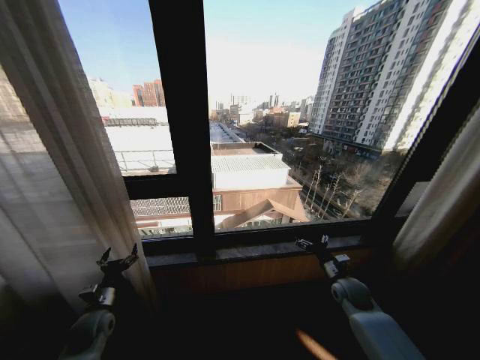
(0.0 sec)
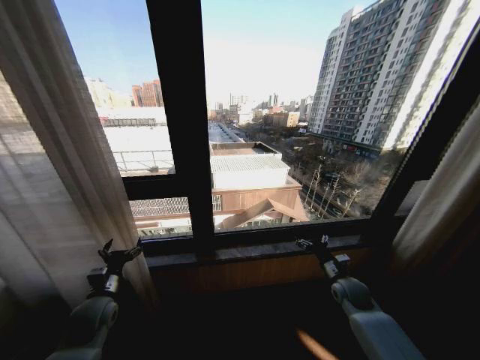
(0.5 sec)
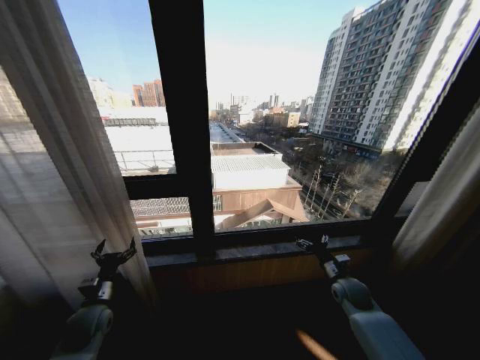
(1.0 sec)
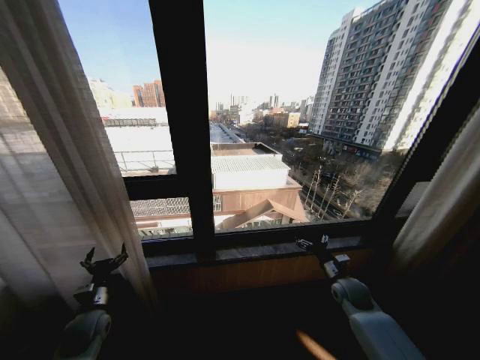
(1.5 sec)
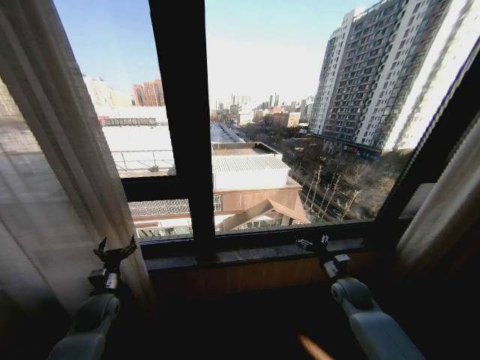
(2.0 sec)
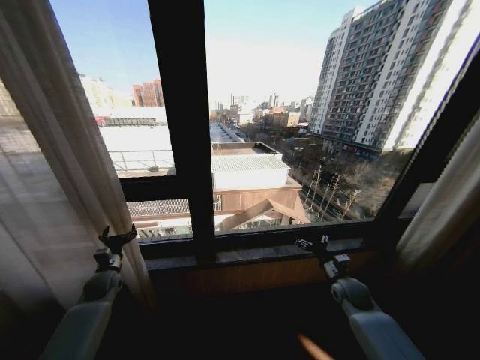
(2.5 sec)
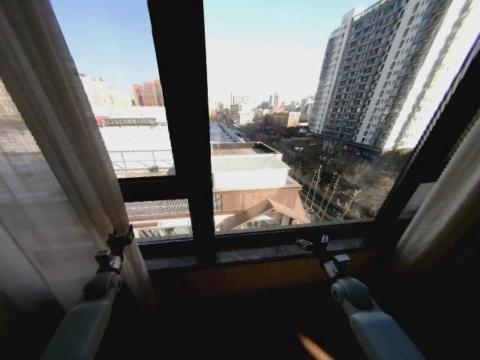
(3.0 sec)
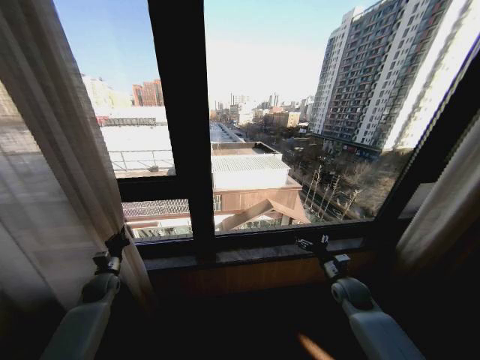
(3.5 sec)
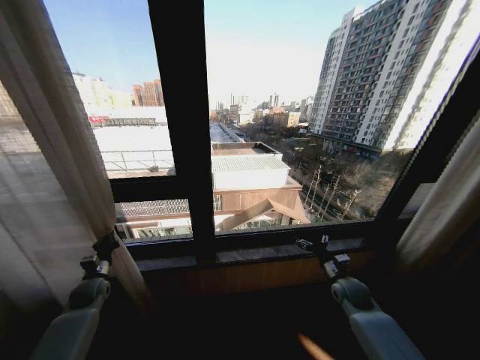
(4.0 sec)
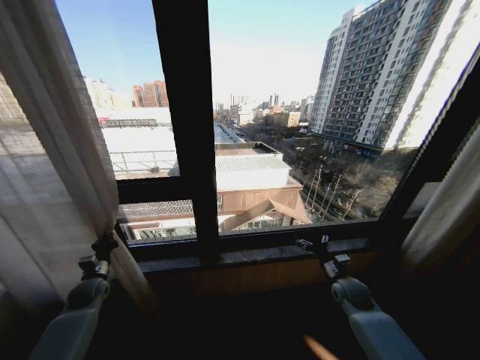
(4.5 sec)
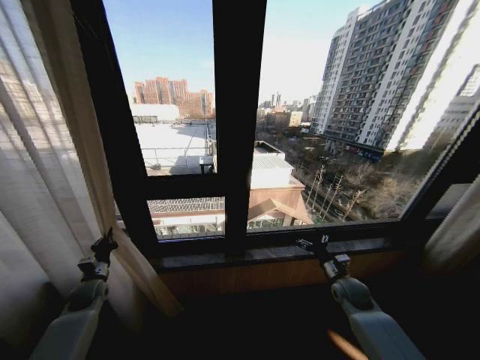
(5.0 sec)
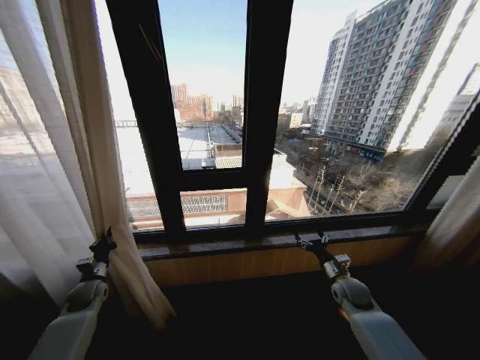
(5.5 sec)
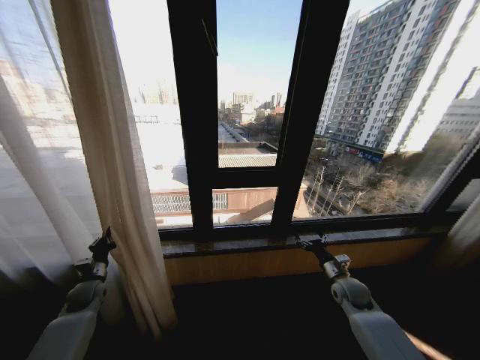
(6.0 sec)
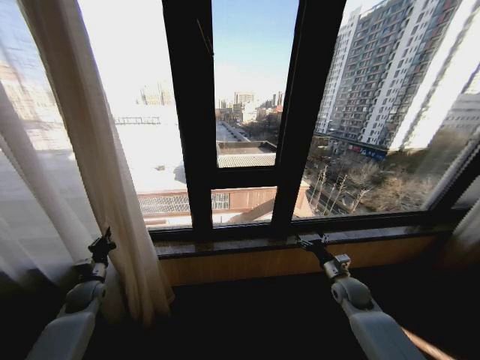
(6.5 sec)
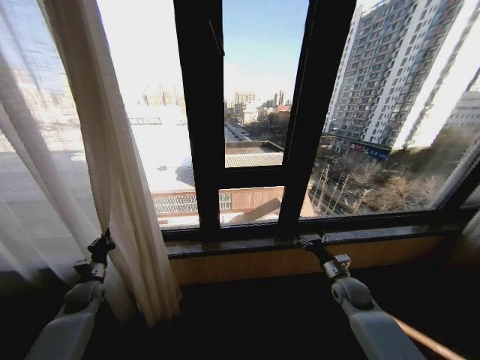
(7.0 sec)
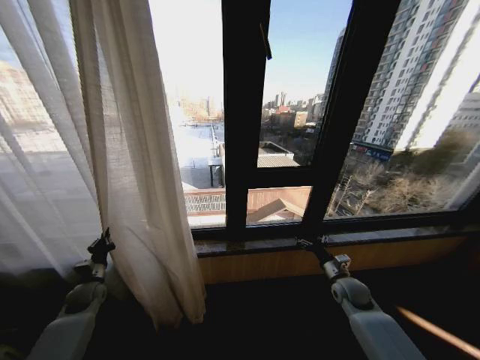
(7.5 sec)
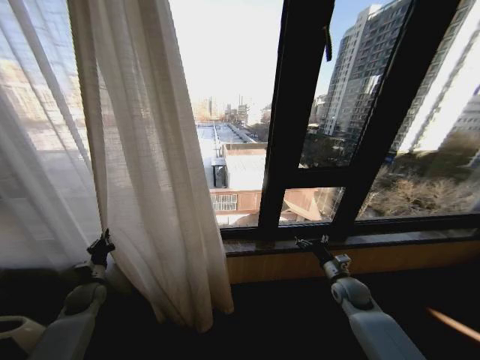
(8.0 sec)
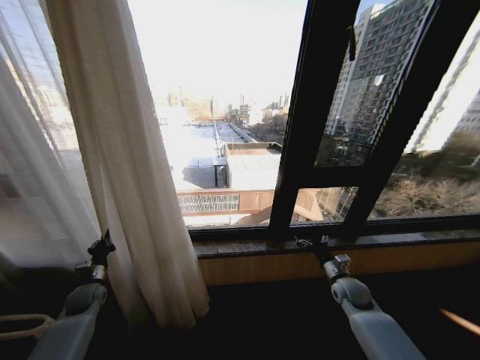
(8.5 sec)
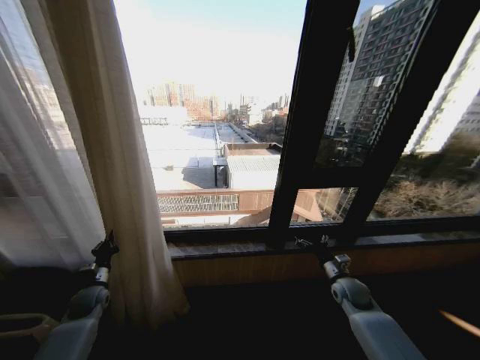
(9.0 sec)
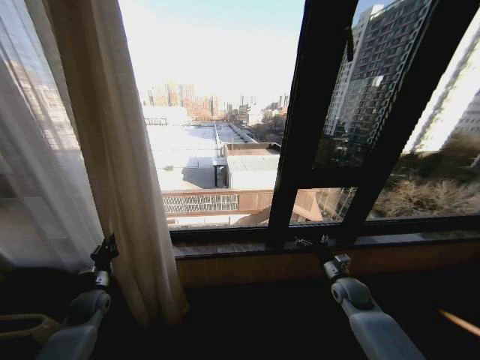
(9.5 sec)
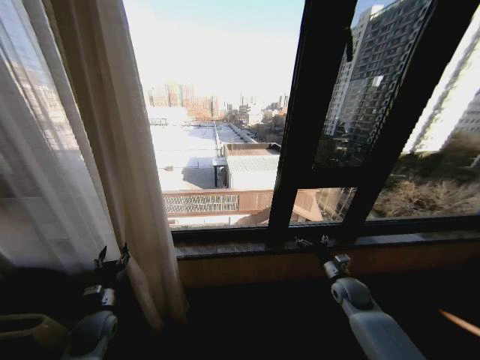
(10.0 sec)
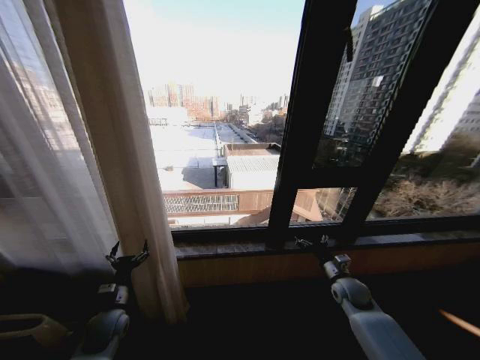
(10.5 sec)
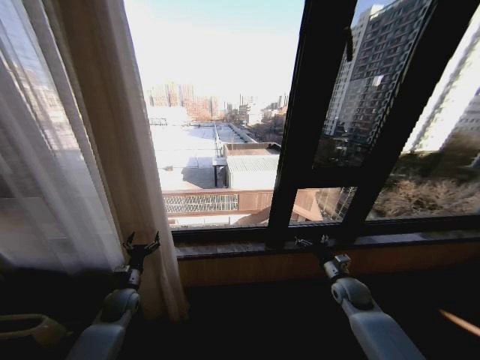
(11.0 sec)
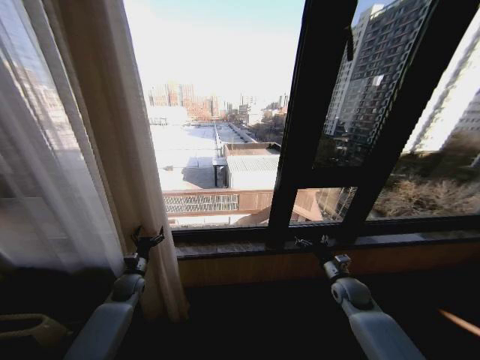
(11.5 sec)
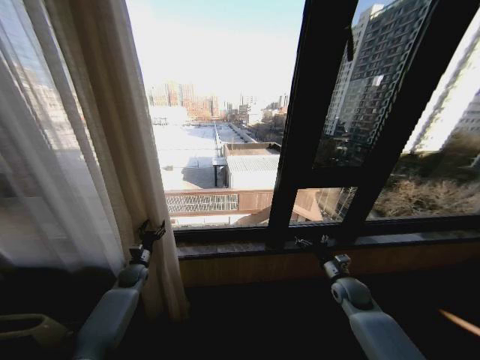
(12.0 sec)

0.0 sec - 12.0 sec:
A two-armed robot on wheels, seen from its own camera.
Task of the whole recording: Open the curtains by pulling them apart, changing their state from closed to fully open.
2.0 sec - 4.0 sec: The left gripper goes about 10 cm to the left and forward, and closes up.
8.0 sec - 10.0 sec: The left gripper moves to the right and backward, roughly 10 cm, and opens its fingers.
10.0 sec - 12.0 sec: The left gripper shifts approximately 15 cm forward.

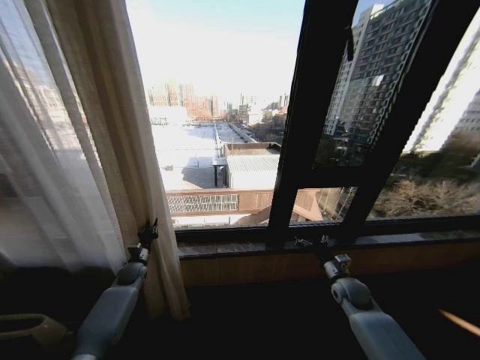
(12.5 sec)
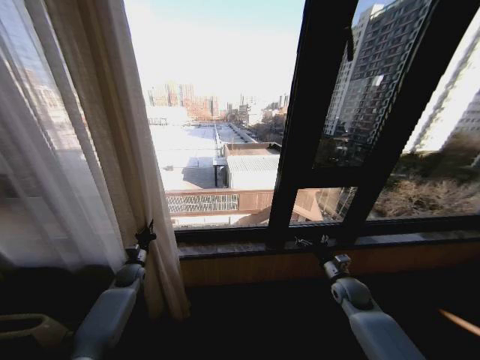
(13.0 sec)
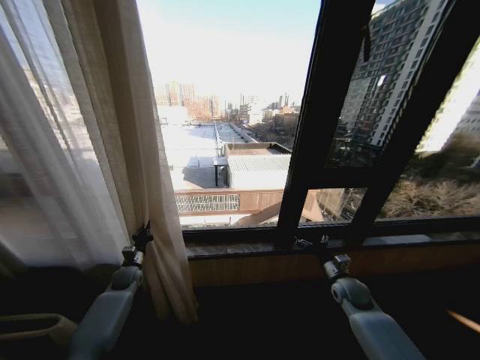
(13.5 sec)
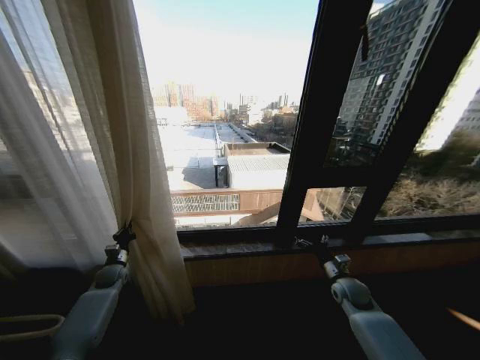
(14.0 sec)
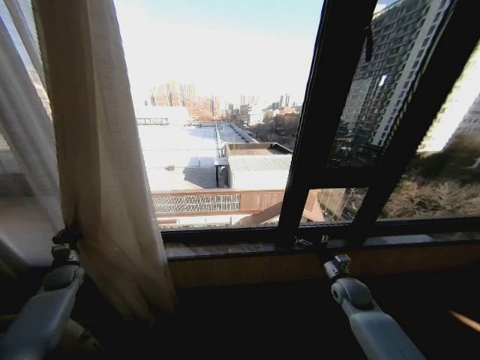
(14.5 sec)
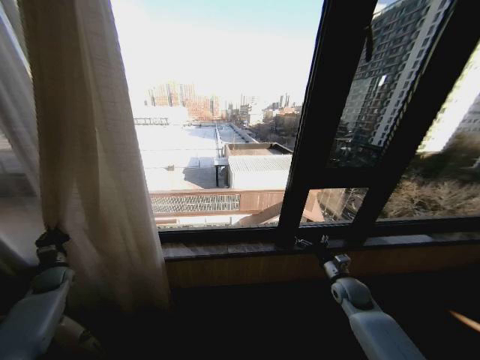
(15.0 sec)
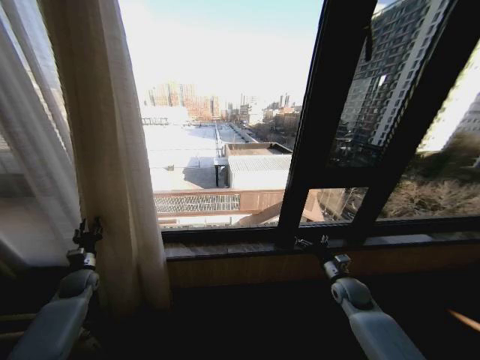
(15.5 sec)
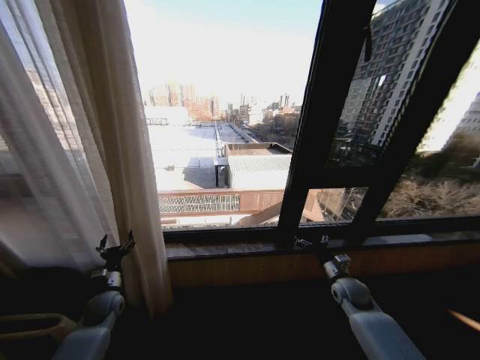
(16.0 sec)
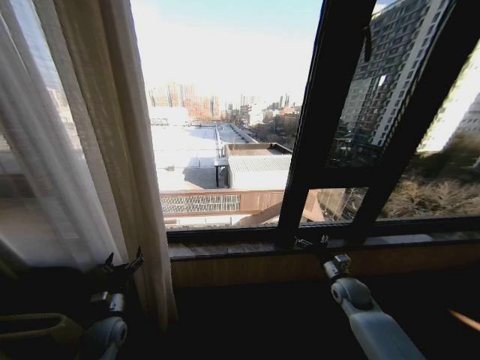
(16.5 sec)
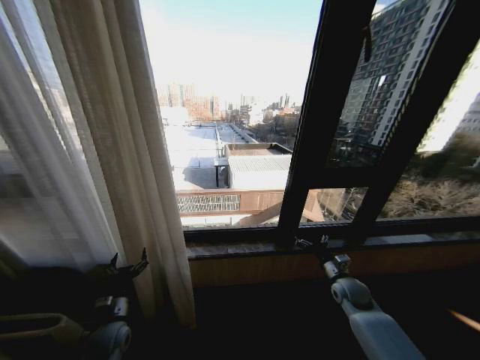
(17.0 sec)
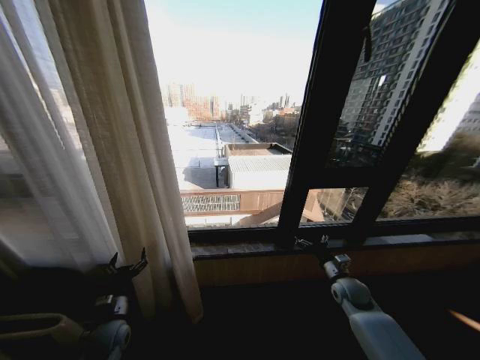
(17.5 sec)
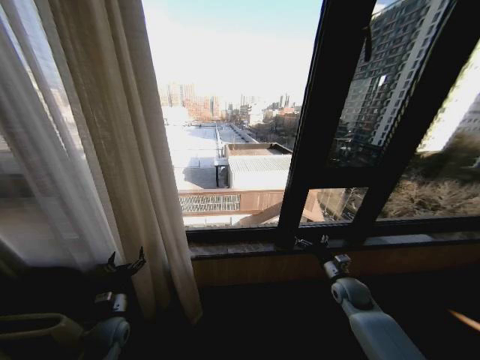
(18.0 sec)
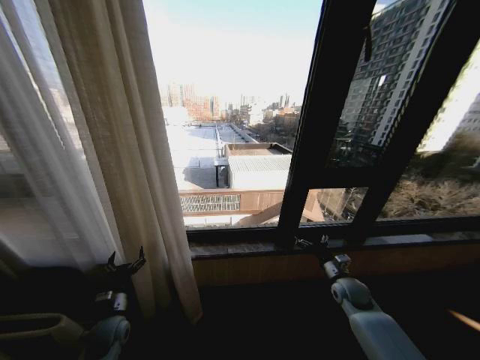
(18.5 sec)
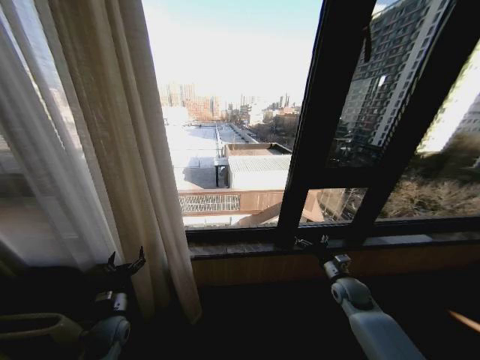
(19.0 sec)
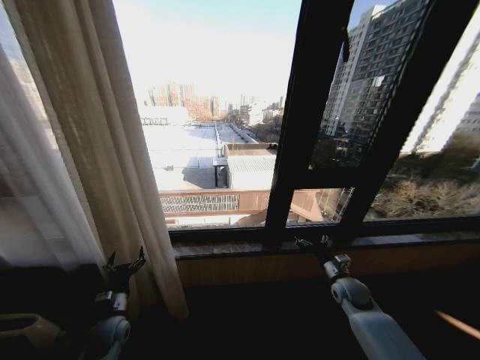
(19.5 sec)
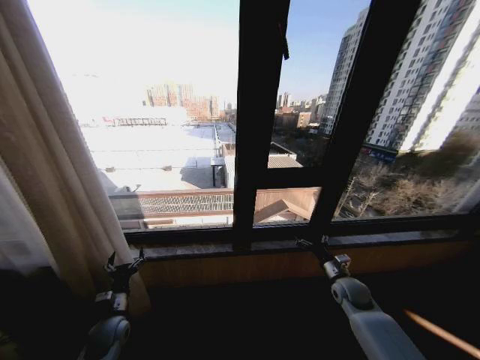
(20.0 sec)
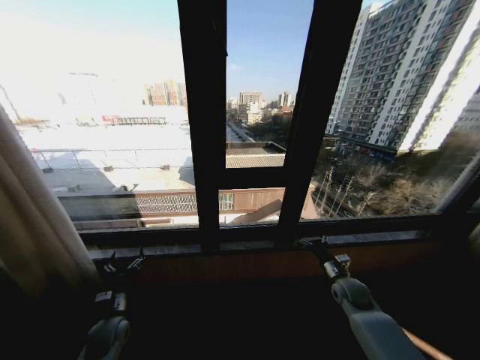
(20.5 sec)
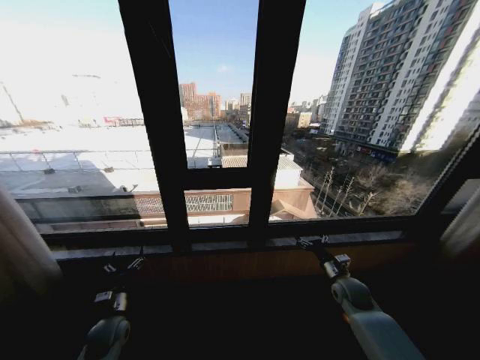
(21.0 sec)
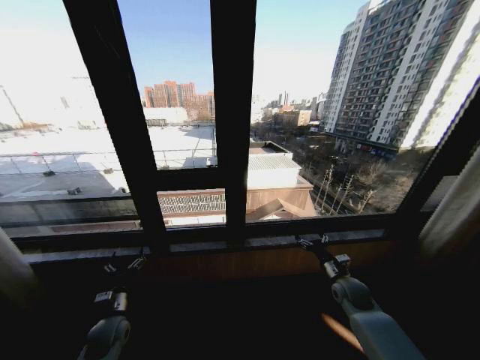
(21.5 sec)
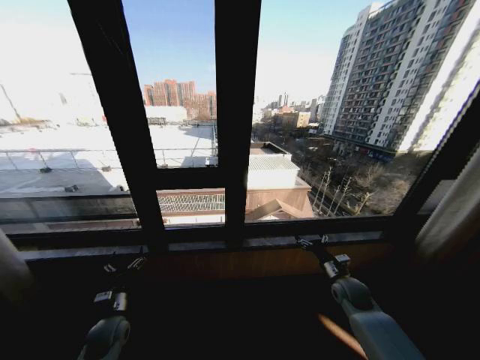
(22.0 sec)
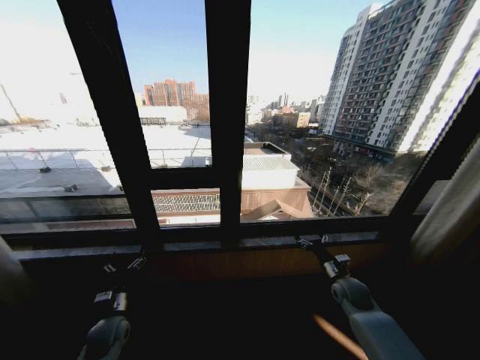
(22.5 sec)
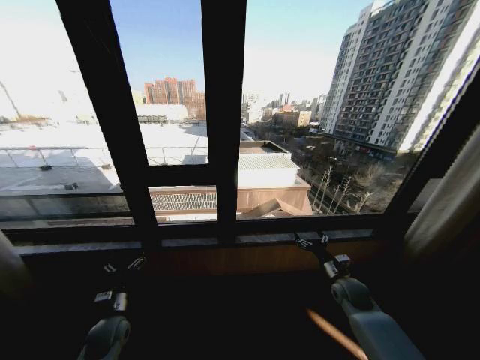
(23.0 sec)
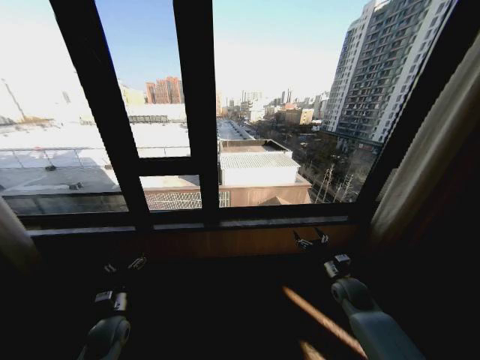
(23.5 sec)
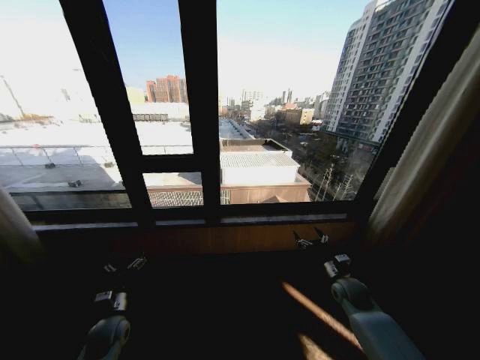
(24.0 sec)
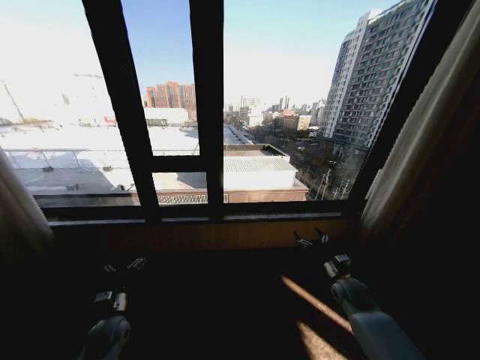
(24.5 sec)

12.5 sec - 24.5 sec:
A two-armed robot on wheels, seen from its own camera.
Task of the whole recording: Open the curtains by pulling them apart, changing their state from closed to fully open.
12.5 sec - 14.5 sec: The left gripper moves to the left, roughly 20 cm.
14.5 sec - 16.5 sec: The left gripper moves to the right and backward, roughly 25 cm, and opens its fingers.
16.5 sec - 18.5 sec: The grippers make only small movements.

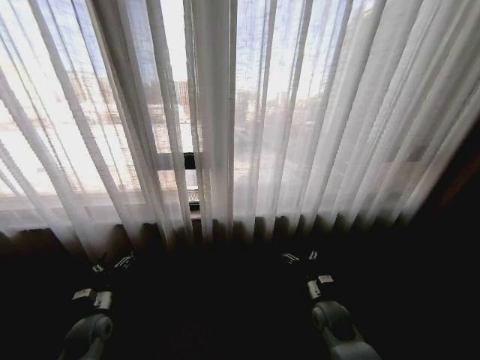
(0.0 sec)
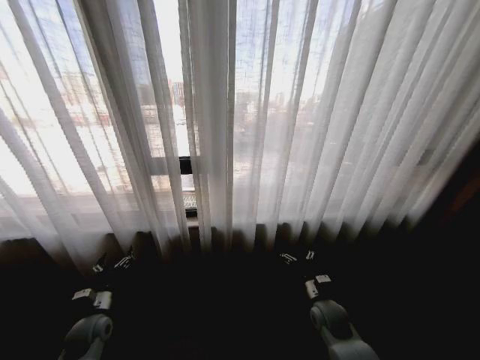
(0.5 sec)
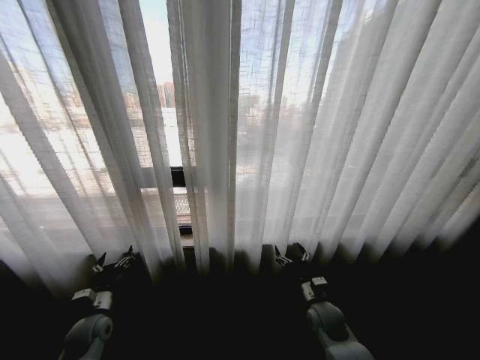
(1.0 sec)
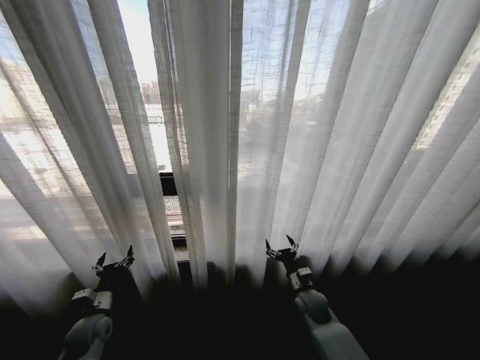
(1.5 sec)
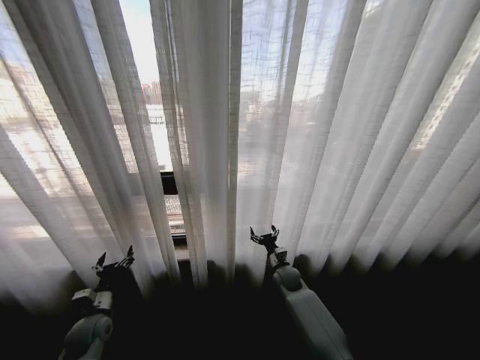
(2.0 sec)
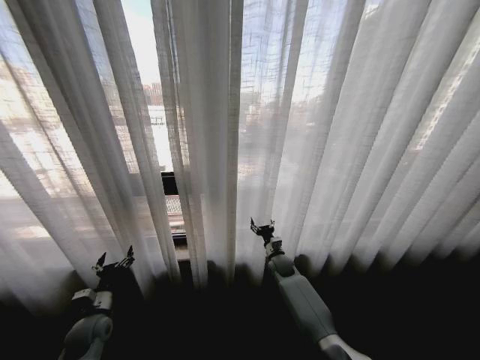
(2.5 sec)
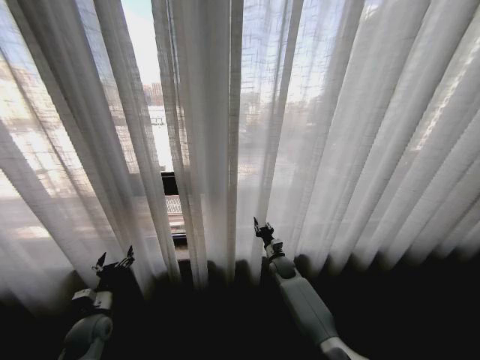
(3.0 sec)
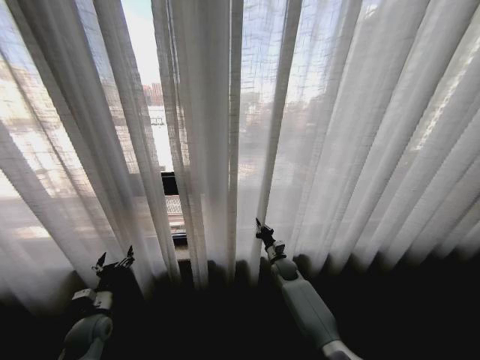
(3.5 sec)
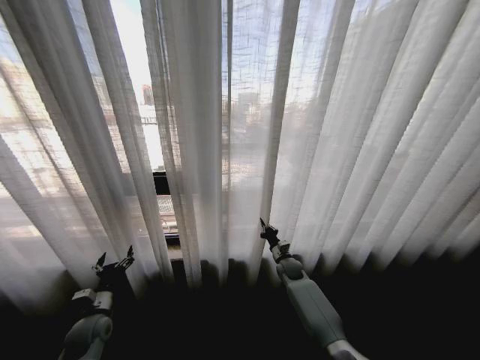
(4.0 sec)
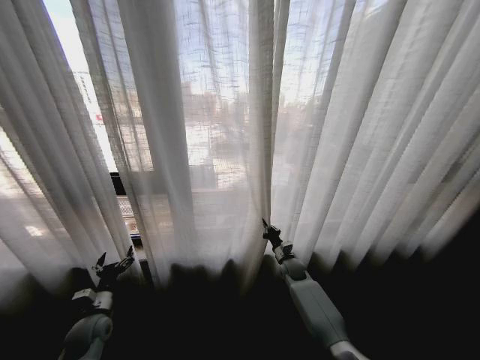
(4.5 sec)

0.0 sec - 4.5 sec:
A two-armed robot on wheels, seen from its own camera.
Task of the whole recording: Open the curtains by pulling them apart, changing their state from closed to fully open.
2.0 sec - 4.5 sec: The right gripper shifts by about 5 cm, and closes.
